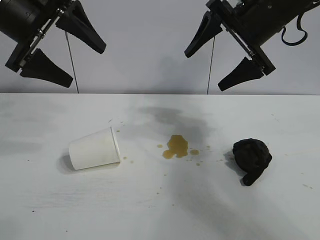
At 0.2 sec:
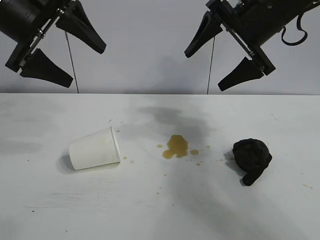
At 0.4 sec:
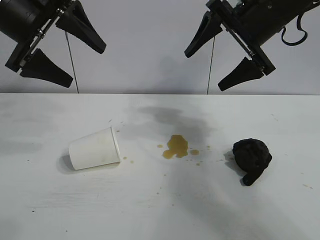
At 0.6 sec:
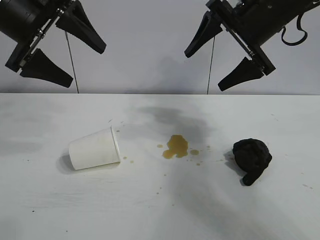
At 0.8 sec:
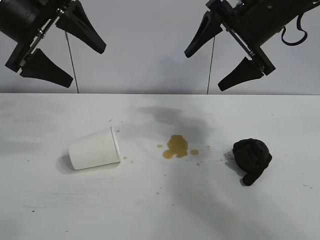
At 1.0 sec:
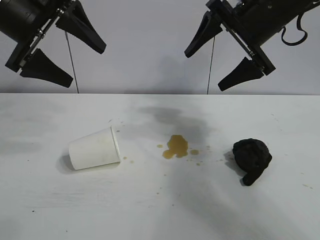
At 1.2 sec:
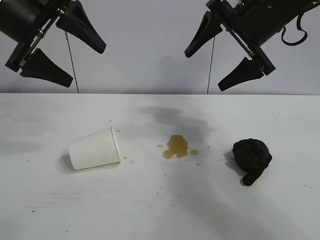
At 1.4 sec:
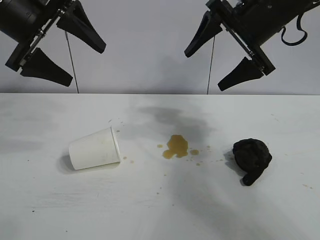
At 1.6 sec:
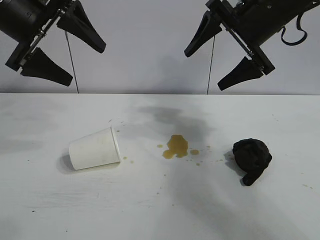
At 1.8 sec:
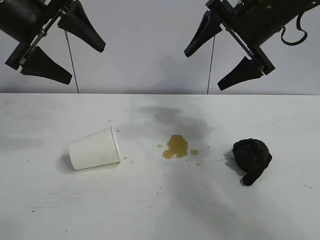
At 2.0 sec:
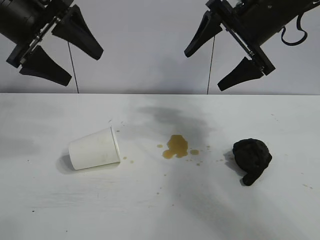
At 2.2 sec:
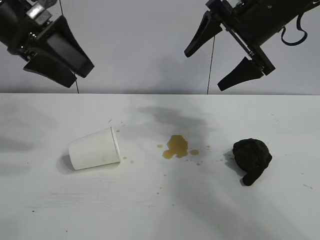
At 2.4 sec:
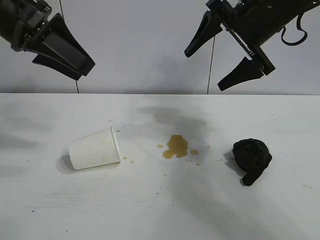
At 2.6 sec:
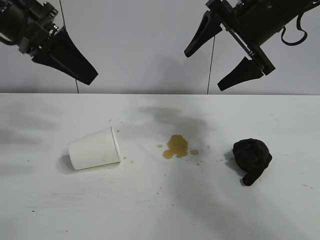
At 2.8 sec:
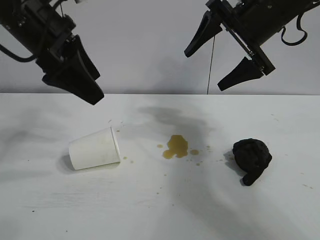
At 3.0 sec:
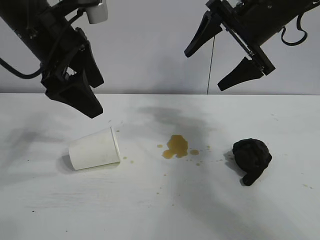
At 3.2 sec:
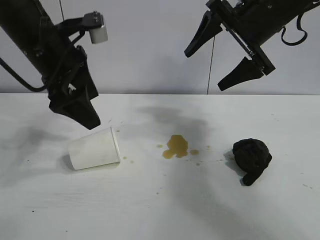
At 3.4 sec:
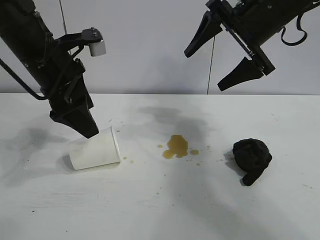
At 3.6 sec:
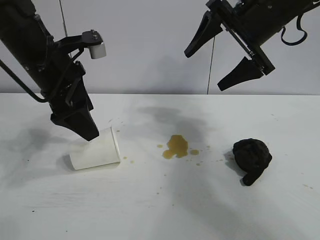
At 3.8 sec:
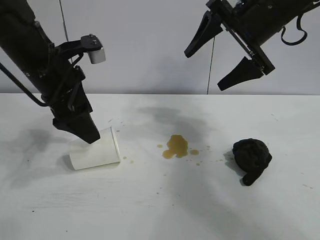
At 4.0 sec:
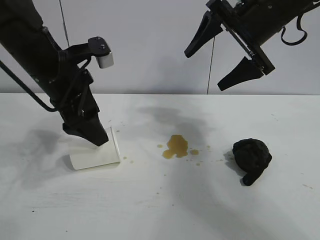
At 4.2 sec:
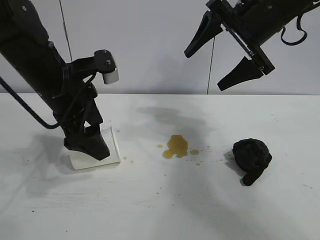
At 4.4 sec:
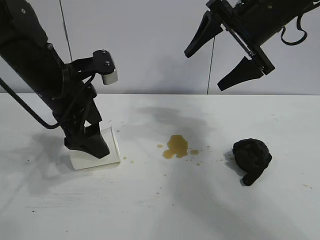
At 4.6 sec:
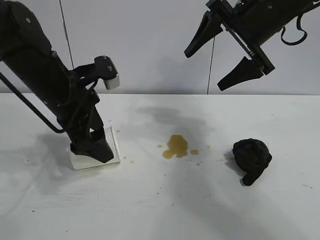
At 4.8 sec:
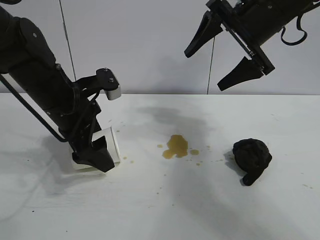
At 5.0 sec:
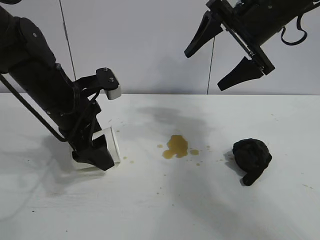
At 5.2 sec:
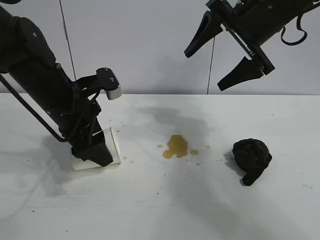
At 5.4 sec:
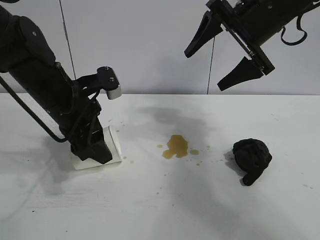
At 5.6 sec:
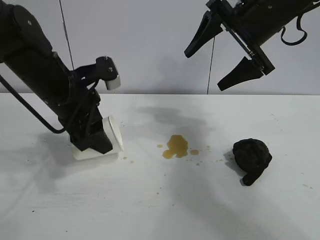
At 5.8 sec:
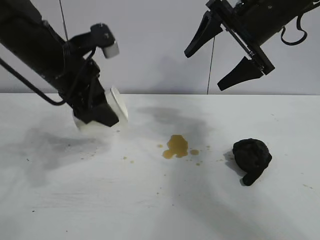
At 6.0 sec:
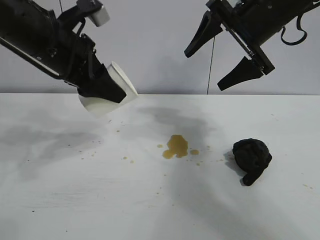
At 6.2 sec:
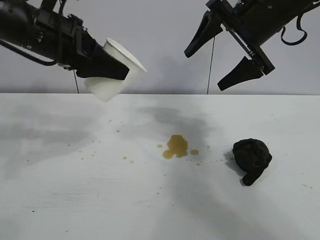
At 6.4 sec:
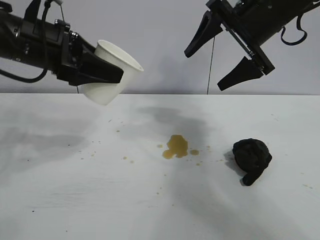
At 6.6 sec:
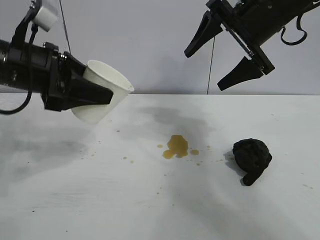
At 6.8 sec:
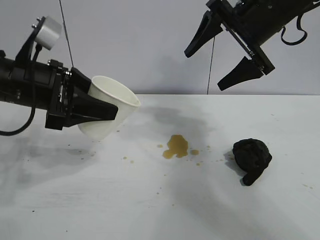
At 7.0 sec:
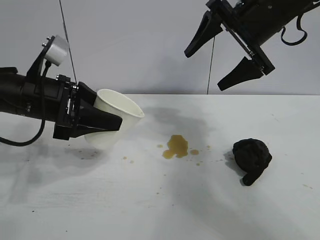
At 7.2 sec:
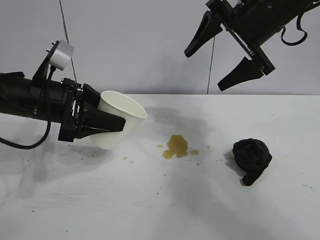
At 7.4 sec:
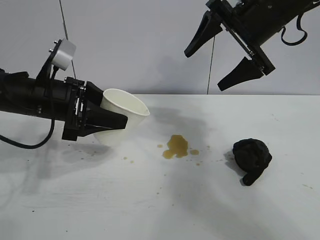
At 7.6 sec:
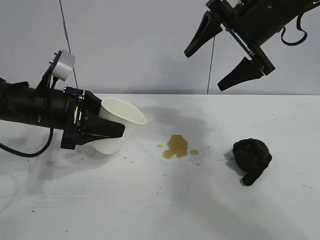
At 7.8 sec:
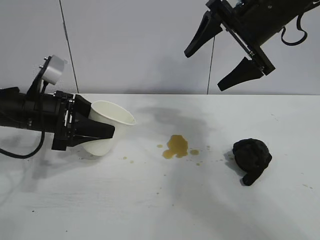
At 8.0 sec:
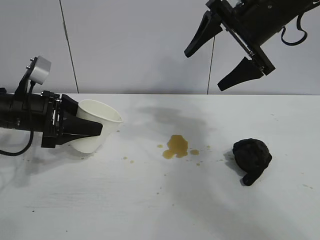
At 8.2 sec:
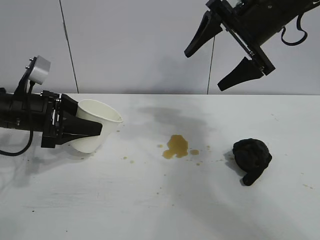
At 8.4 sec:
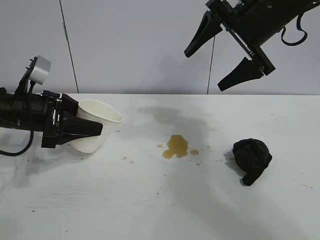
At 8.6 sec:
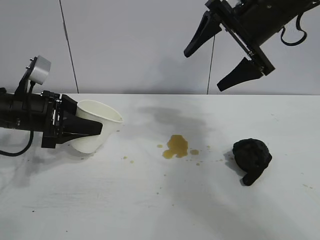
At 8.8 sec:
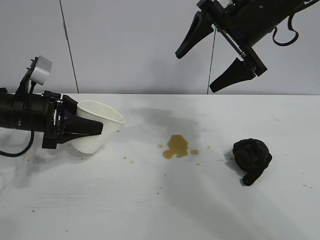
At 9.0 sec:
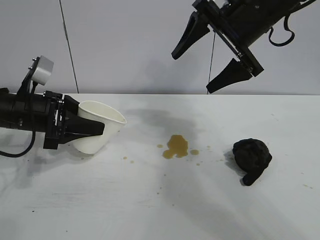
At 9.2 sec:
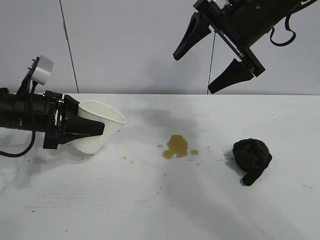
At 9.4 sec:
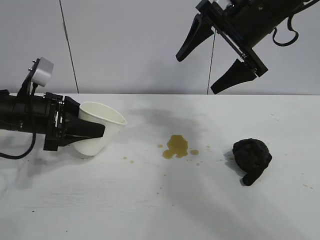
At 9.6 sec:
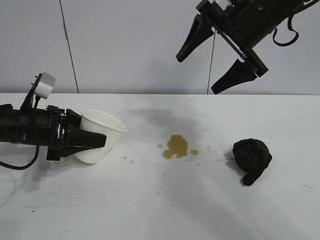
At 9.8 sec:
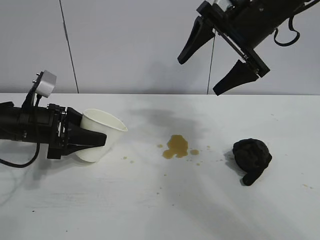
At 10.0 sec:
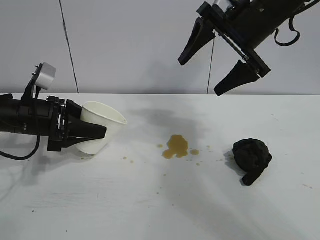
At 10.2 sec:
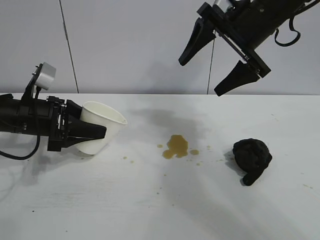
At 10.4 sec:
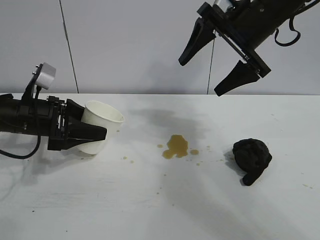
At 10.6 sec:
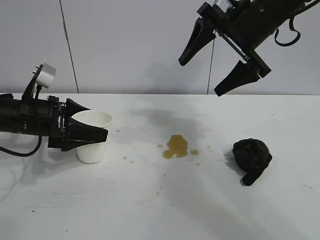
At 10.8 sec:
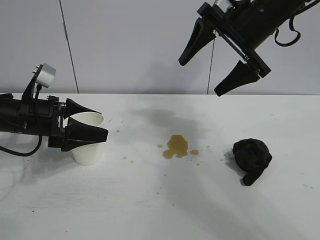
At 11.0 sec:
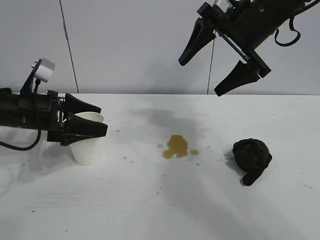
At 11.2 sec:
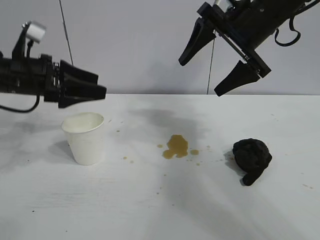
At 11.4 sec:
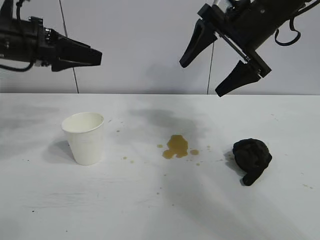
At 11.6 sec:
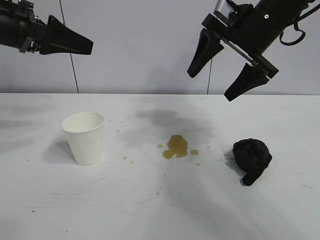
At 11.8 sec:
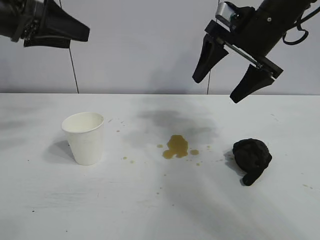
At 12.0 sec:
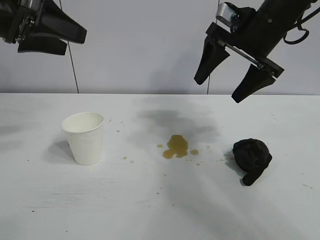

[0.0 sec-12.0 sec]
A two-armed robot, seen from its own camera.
Task of the whole recording: the left gripper pick up the fallen cup and place it upright, the right gripper grasp the black rag and wipe the stain on the table, the right gripper put the black rag back in its original position.
Step, 1.2 sec to 5.4 sec: Grasp the paper cup with left gripper.
Step, 5.6 sec to 10.6 sec: Stand the paper cup upright with left gripper.

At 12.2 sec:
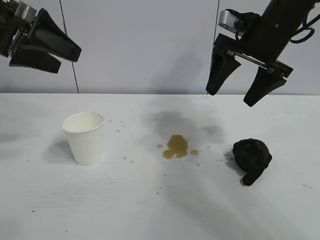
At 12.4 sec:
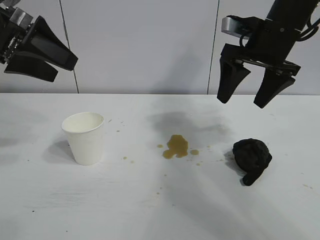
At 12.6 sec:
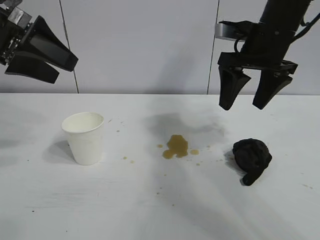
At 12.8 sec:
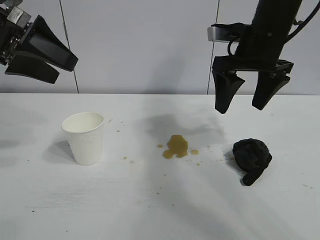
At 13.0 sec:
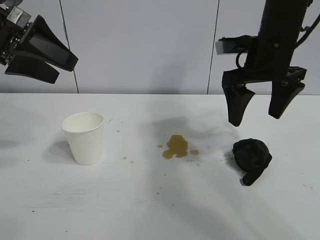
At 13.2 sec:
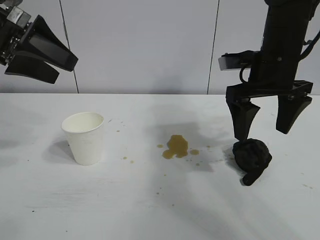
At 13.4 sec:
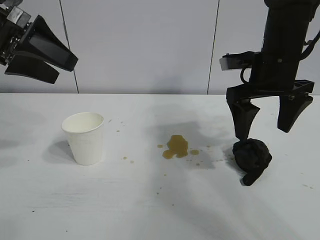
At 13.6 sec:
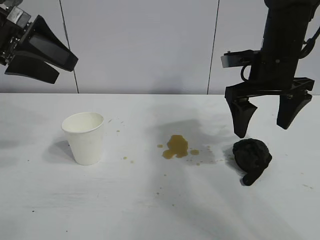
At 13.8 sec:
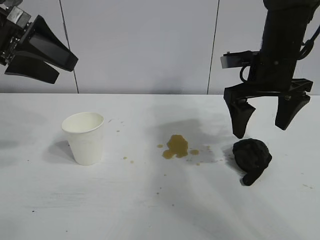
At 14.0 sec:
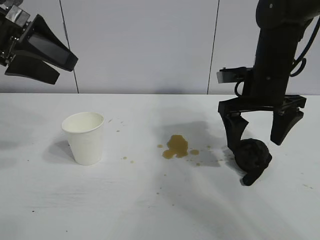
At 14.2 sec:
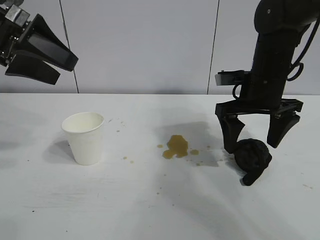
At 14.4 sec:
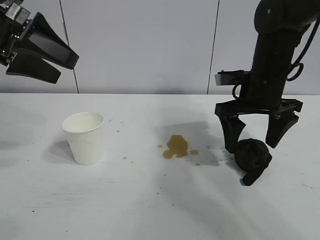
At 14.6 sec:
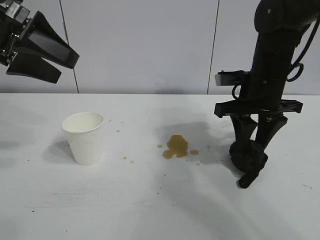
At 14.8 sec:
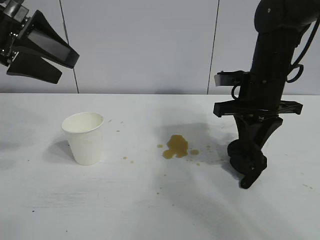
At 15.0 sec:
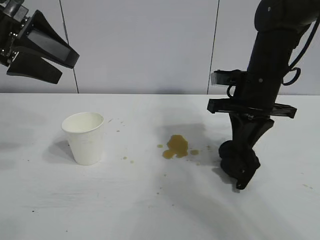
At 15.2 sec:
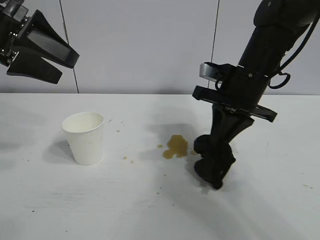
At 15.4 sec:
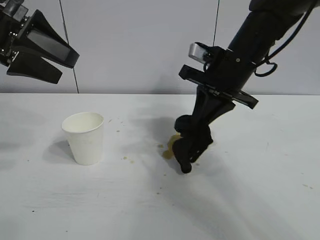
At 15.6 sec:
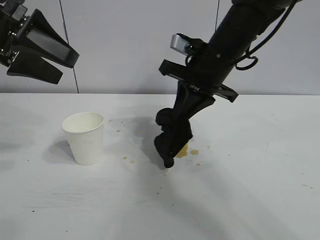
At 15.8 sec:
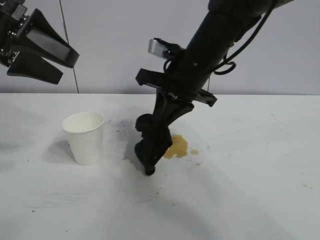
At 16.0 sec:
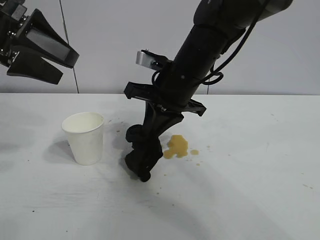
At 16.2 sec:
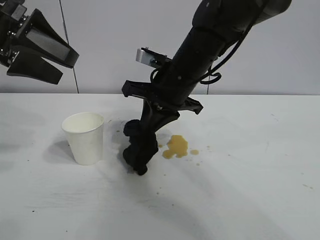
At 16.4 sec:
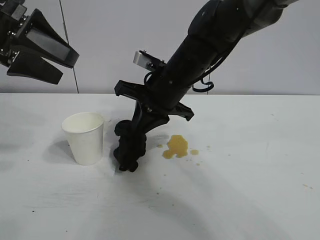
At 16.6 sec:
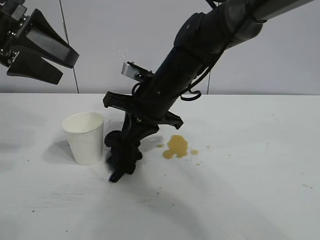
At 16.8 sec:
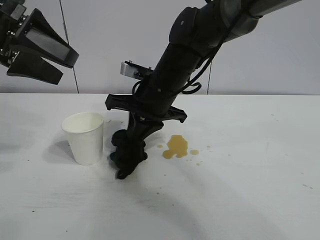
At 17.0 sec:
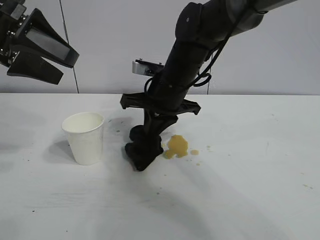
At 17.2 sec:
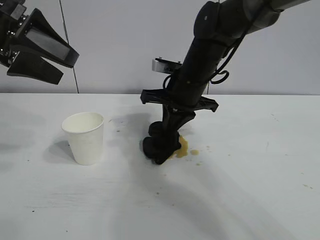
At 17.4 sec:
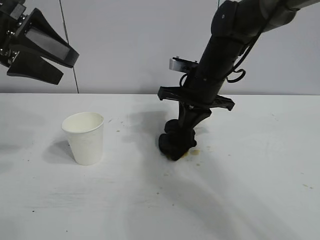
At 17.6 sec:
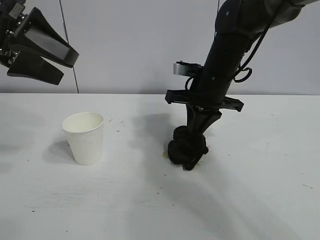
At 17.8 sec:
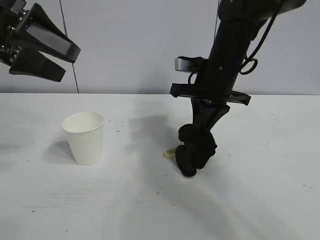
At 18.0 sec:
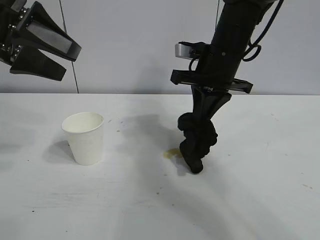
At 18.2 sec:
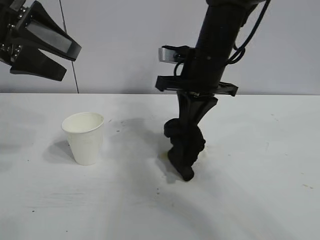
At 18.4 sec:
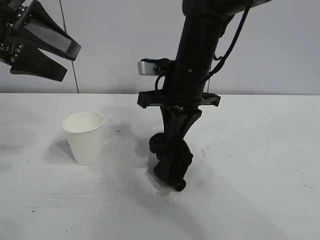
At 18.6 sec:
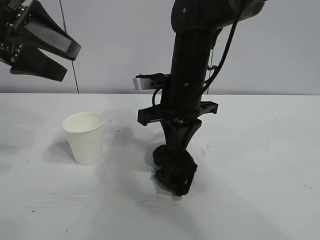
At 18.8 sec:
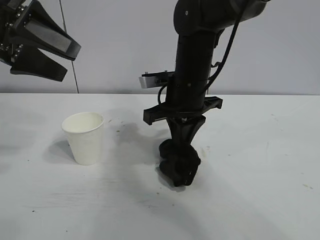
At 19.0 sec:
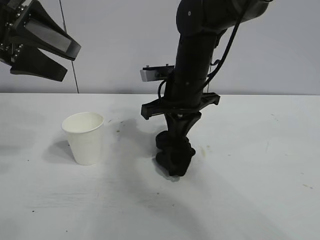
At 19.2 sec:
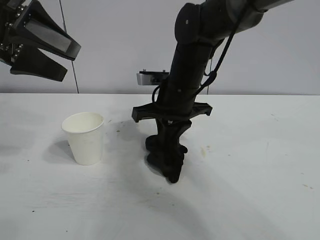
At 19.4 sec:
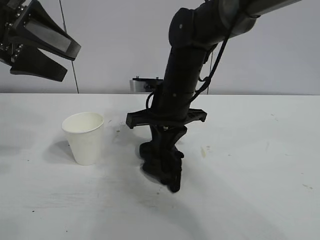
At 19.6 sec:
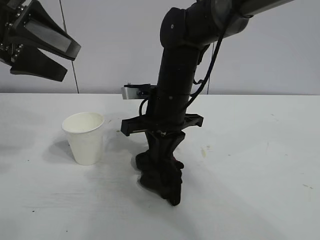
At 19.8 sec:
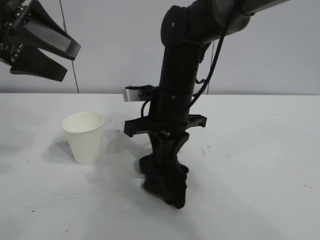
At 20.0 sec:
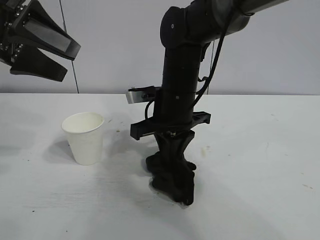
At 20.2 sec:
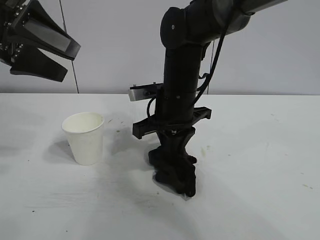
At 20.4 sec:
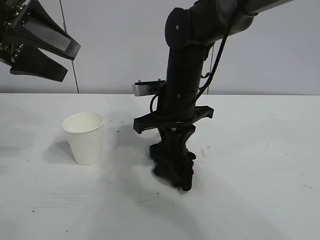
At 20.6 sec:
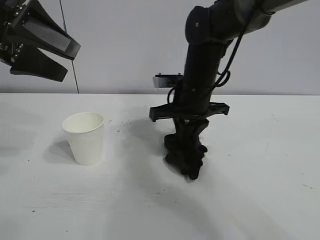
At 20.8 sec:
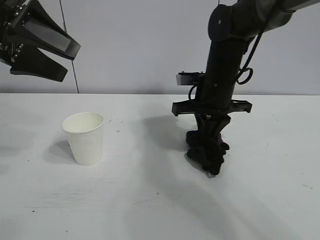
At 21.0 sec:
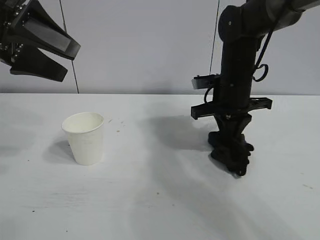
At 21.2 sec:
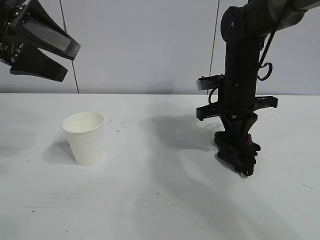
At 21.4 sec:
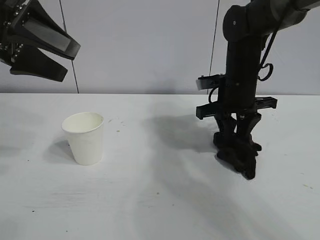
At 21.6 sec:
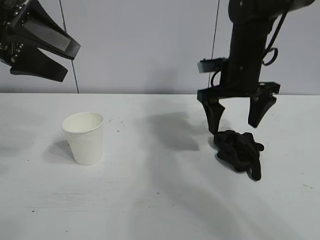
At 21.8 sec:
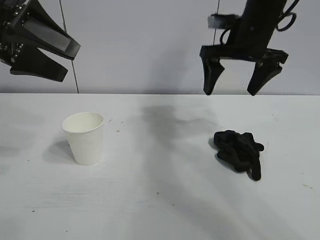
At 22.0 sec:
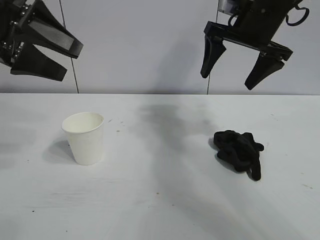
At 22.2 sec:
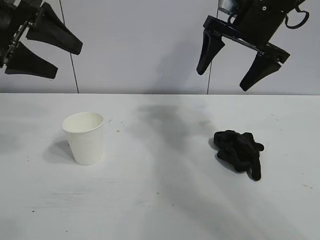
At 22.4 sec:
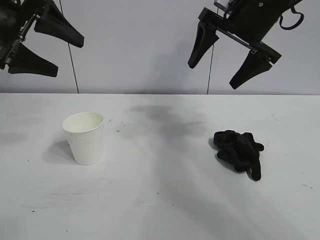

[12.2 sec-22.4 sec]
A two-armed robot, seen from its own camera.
Task of the whole recording: the left gripper pick up the fallen cup and place it upright, the right gripper grasp the black rag and wipe the stain on the table, the right gripper put the black rag back in its original position.
Step, 12.2 sec to 14.6 sec: Grasp the rag with right gripper.
Step, 14.8 sec to 21.0 sec: Wipe the stains off the table with the rag with right gripper.
Step, 21.2 sec to 21.4 sec: Place the rag on the table with right gripper.
